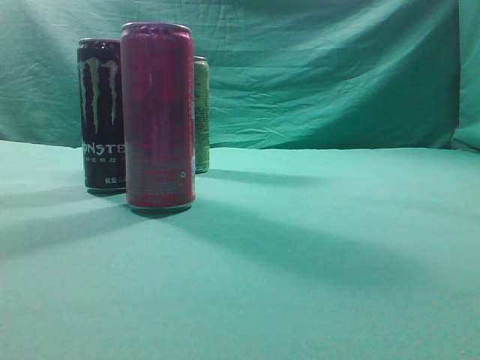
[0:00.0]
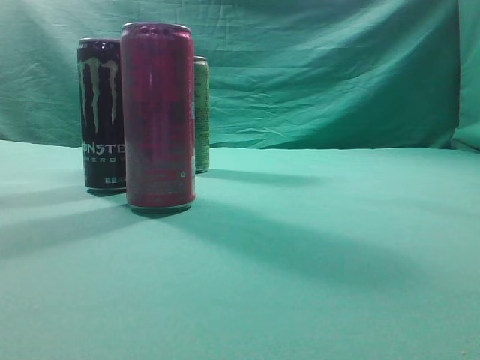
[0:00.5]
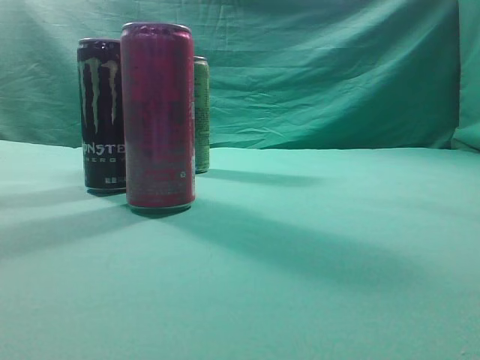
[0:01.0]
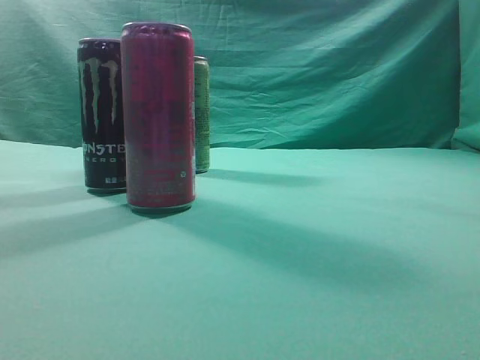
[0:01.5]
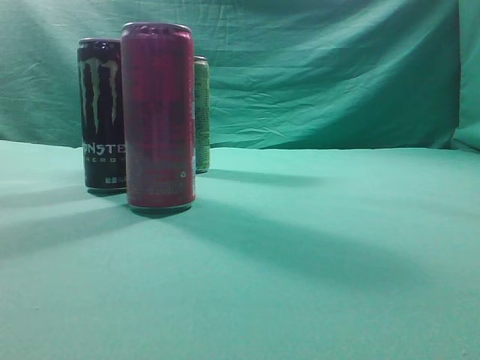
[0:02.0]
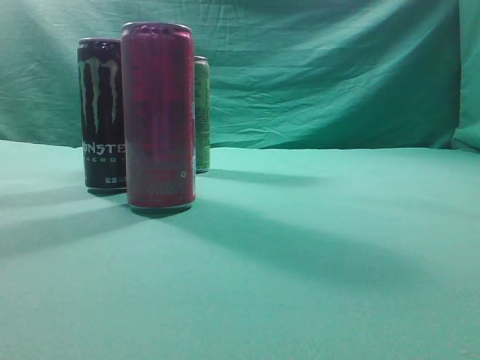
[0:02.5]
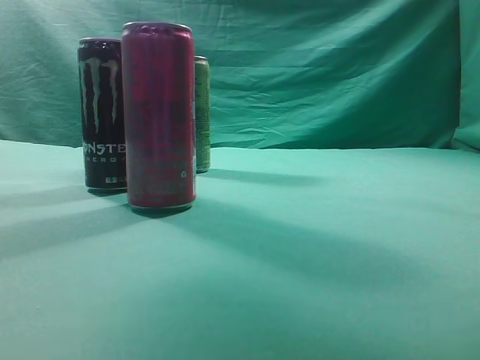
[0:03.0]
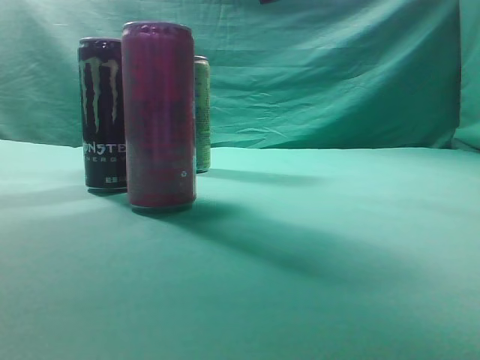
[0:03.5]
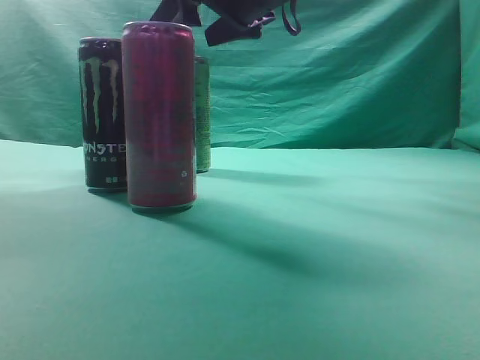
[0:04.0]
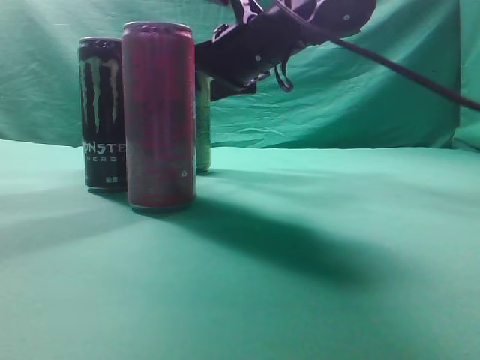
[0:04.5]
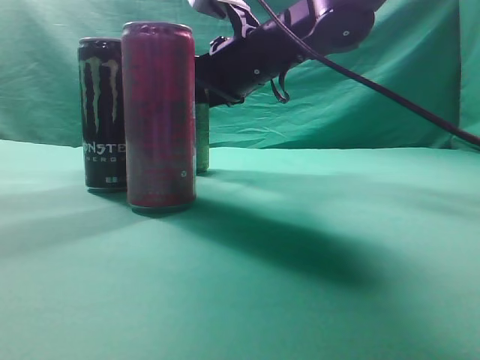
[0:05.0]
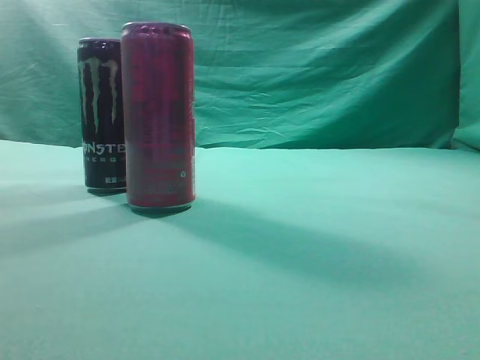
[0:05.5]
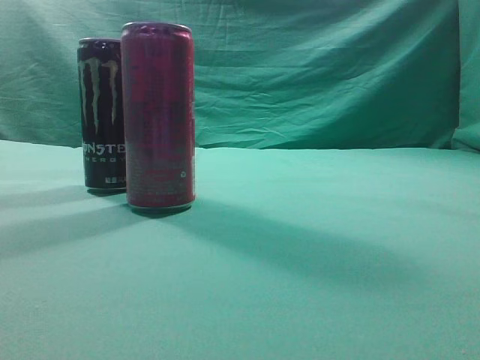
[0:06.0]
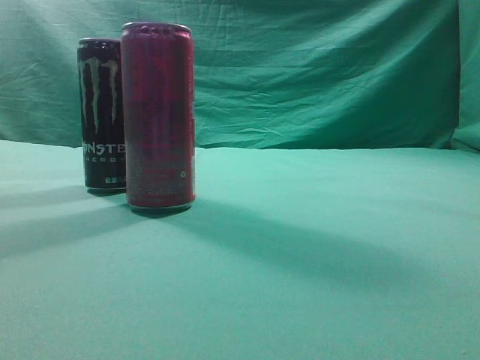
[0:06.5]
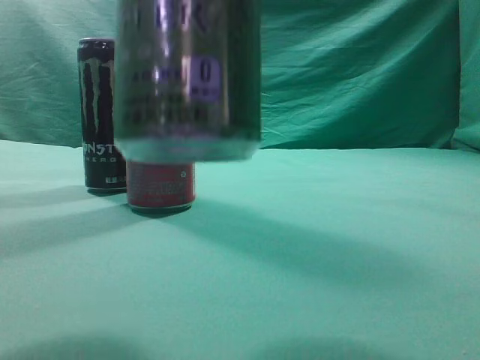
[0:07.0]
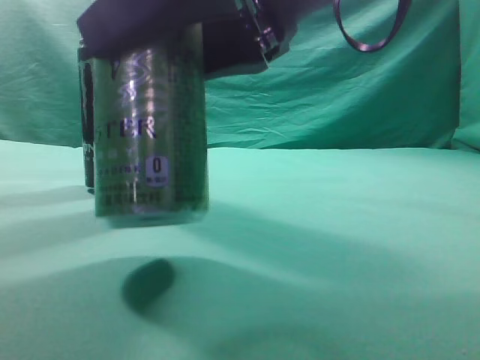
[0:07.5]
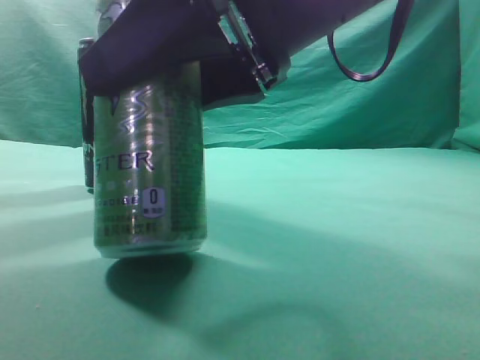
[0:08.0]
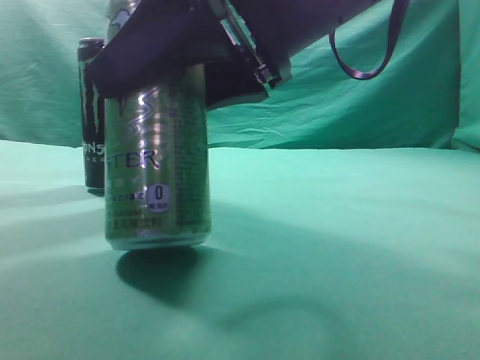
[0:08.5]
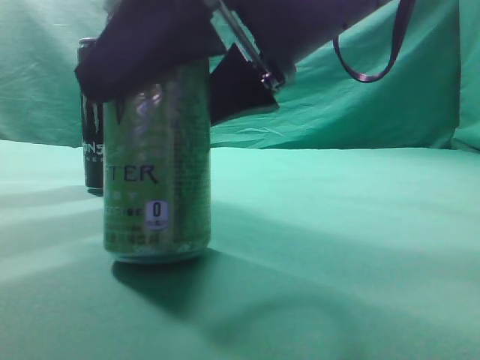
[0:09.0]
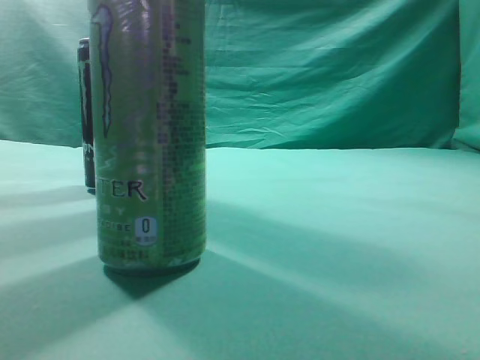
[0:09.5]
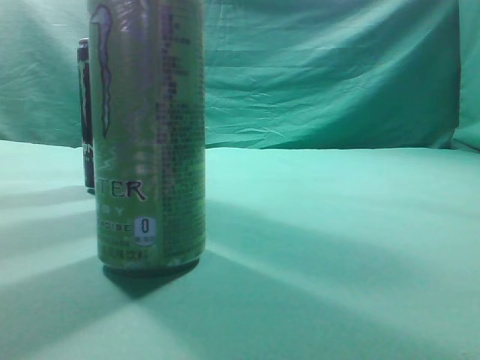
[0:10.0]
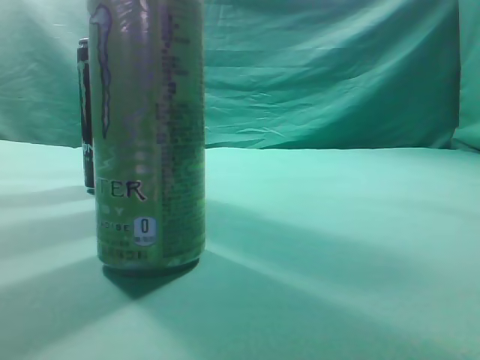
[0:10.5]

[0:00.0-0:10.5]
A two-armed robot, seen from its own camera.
Task of the whole recording: move one drink among three beverages.
Step, 0:00.0 to 0:06.0: Grasp the beverage bottle placed at the back of the desk.
Step, 0:06.5 to 0:09.5: Place the beverage bottle to the front of the table.
0:02.0 to 0:04.0: The right gripper travels forward and to the left by roughly 40 cm, and opens.
0:04.0 to 0:06.5: The right gripper shifts roughly 30 cm backward and to the right, and closes its fingers.
0:06.5 to 0:08.5: The right gripper goes approximately 15 cm downward, to the left and forward.
0:08.5 to 0:10.5: The right gripper travels upward, to the right and backward by some 25 cm, and closes.

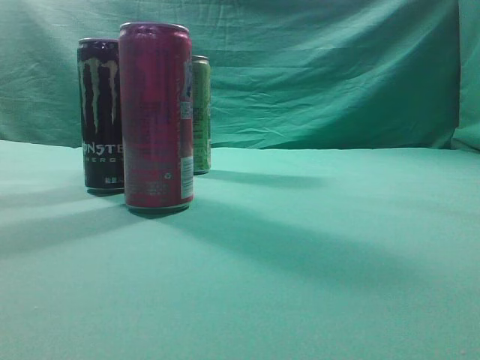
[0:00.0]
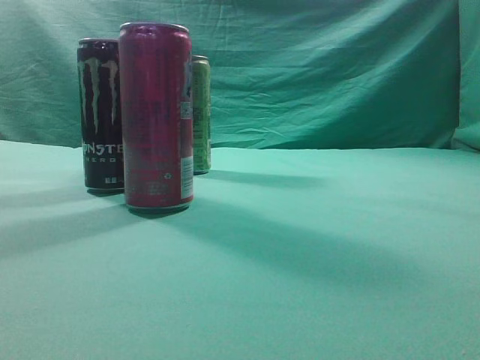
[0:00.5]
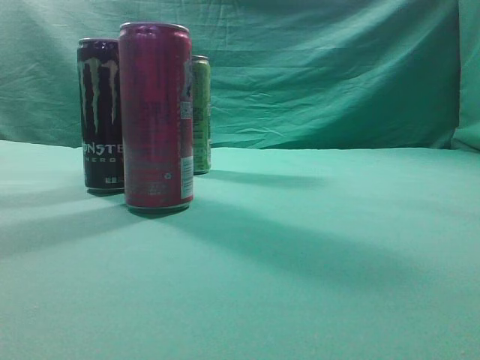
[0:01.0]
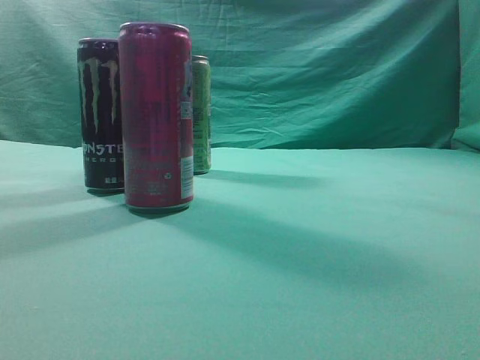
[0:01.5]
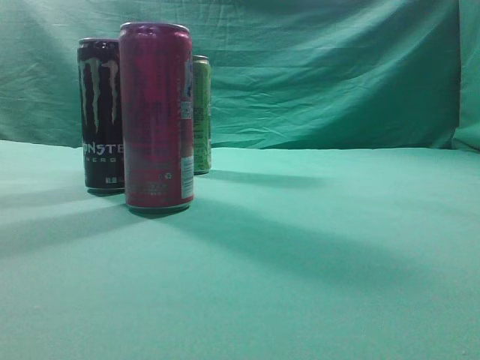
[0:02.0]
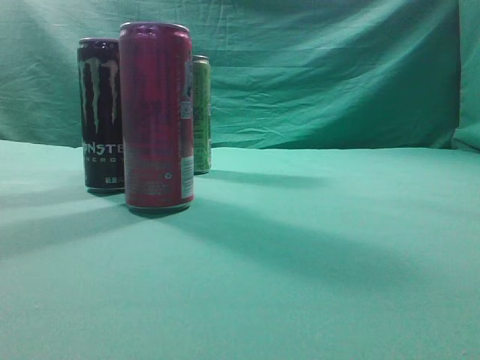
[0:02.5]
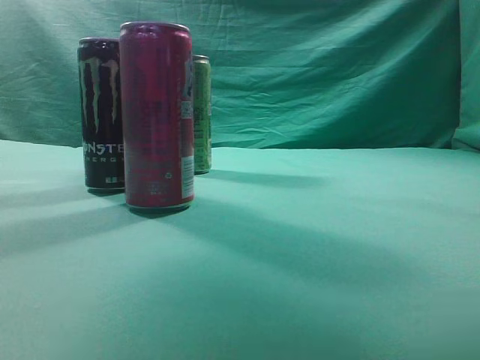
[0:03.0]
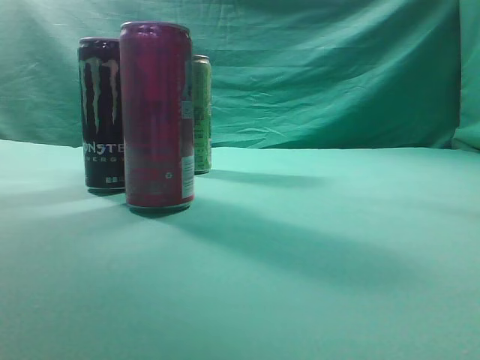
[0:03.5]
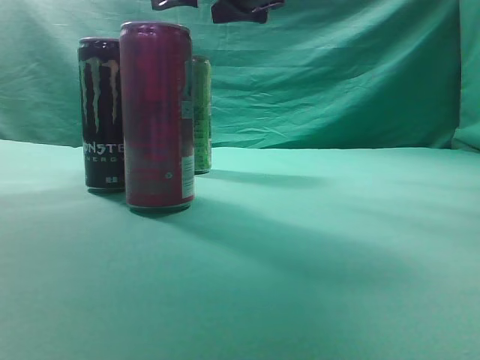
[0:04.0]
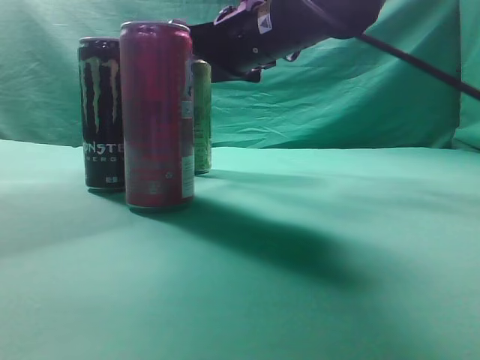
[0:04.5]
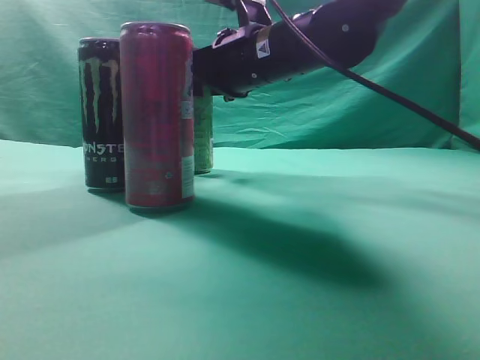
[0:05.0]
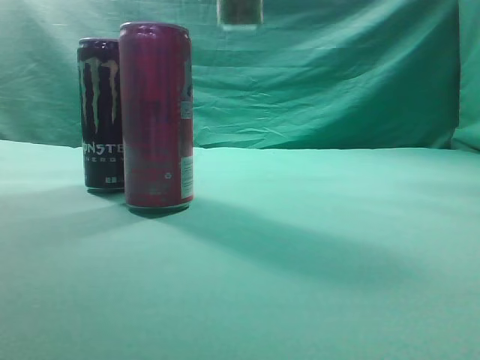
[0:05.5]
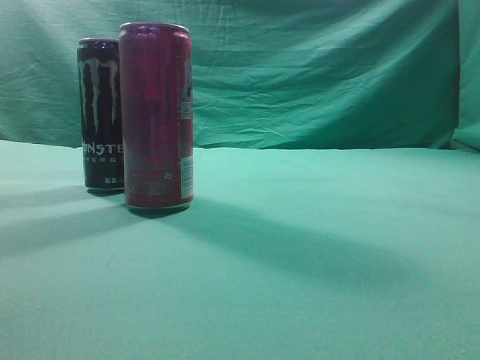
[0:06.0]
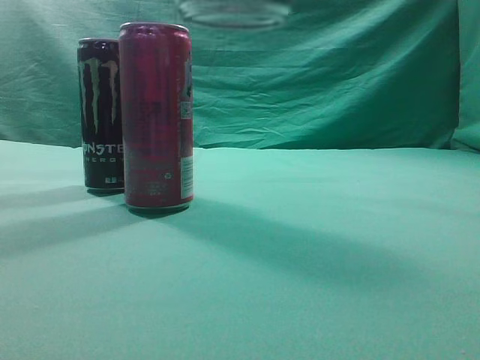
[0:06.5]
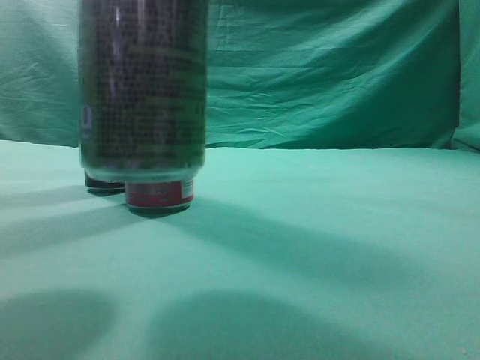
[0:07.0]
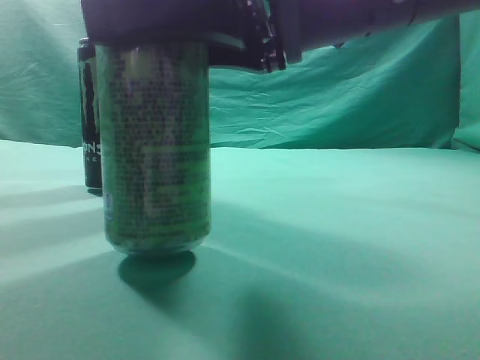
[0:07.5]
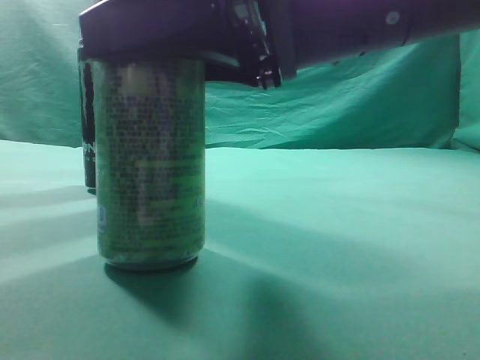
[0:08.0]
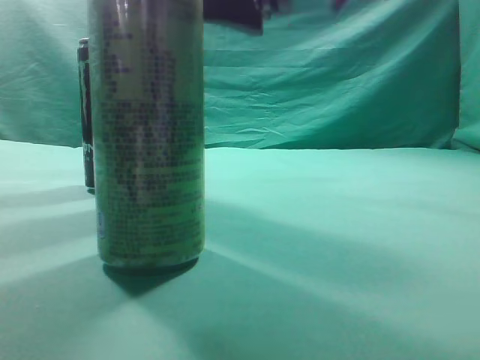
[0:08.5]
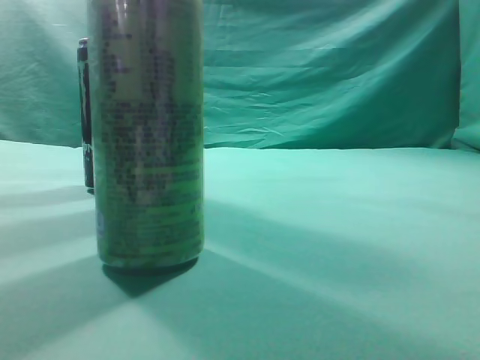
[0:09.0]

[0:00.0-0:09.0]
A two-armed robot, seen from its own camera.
Task of the whole recording: move one drink among three beverages.
Step, 0:00.0 to 0:05.0: Grasp the beverage bottle placed at the back of the desk.
Step, 0:05.5 to 0:08.5: Place the beverage bottle to the front of the table.
0:02.0 to 0:04.5: The right gripper shifts about 40 cm forward and to the left, and opens.
0:04.5 to 0:07.0: The right gripper shifts about 25 cm backward, and closes its fingers.
0:07.0 to 0:09.0: The right gripper travels upward and to the right by roughly 15 cm, and closes.
